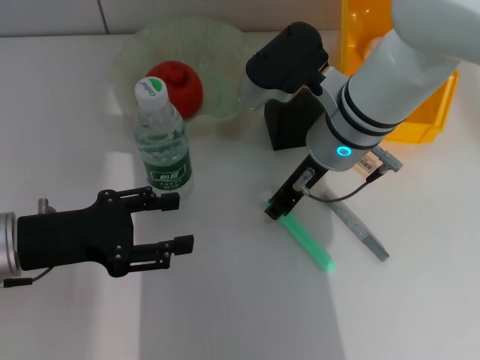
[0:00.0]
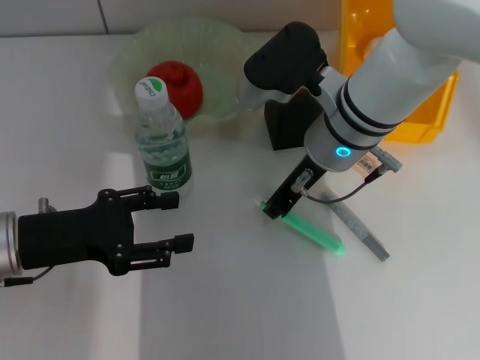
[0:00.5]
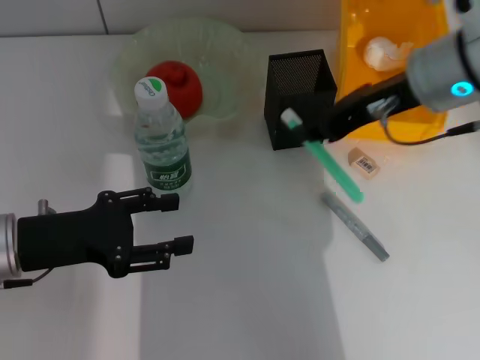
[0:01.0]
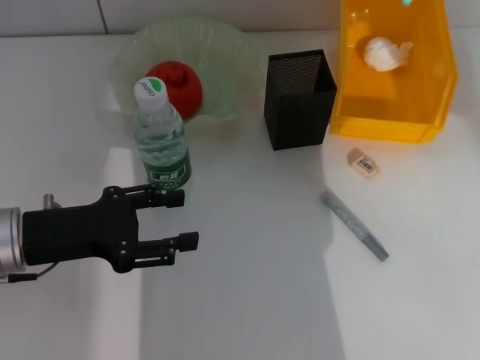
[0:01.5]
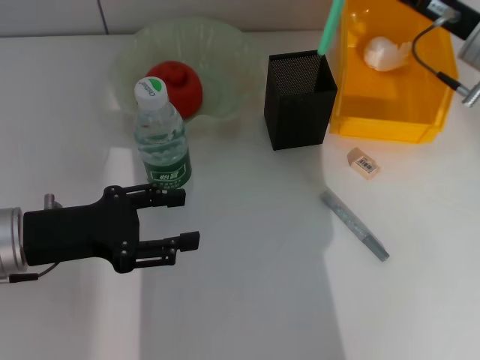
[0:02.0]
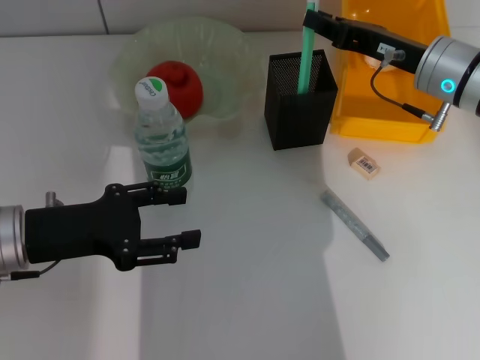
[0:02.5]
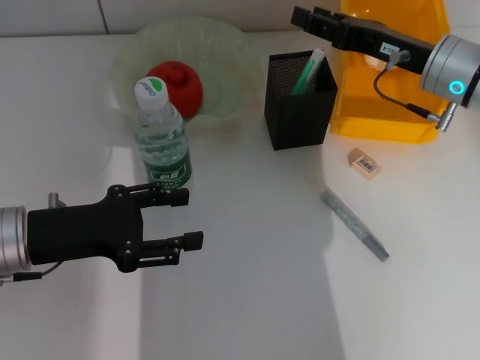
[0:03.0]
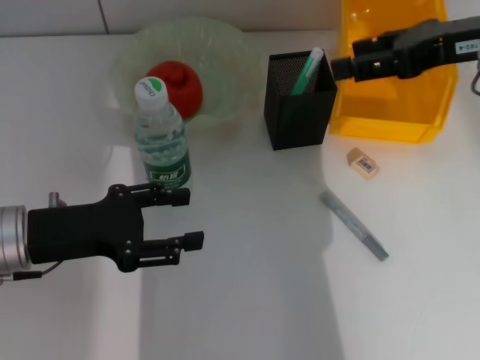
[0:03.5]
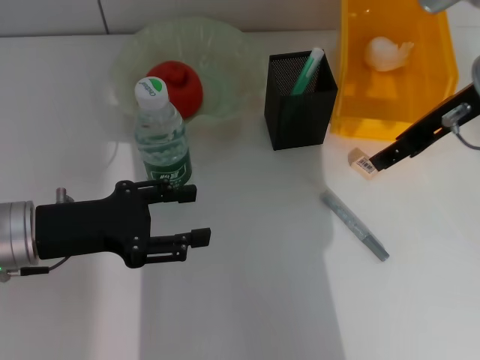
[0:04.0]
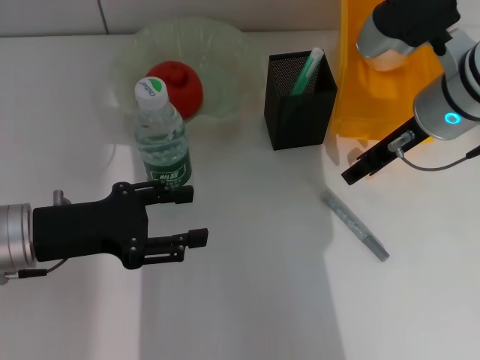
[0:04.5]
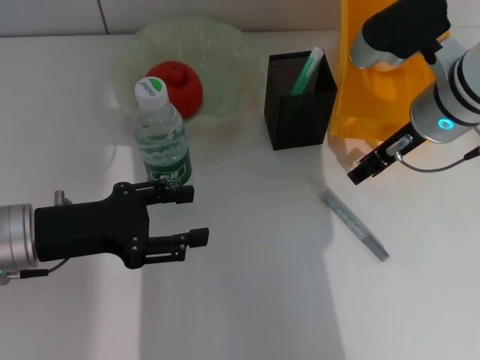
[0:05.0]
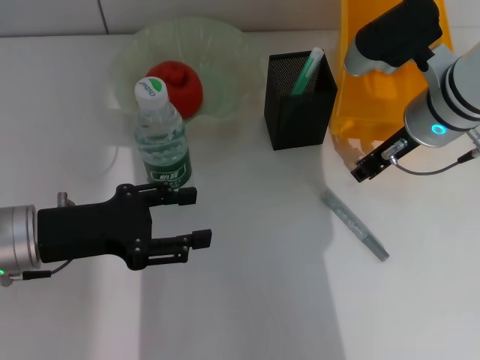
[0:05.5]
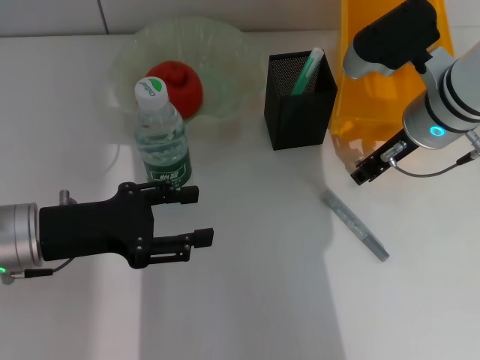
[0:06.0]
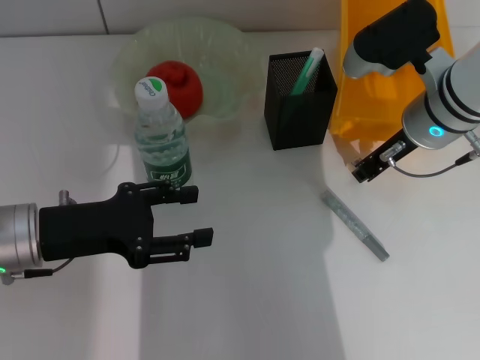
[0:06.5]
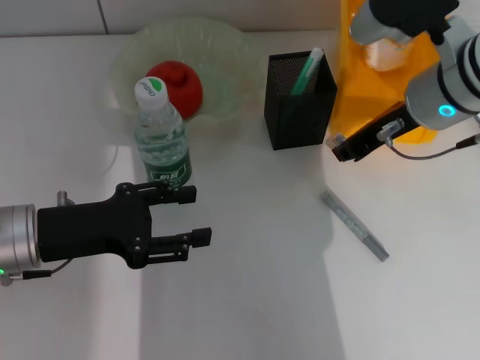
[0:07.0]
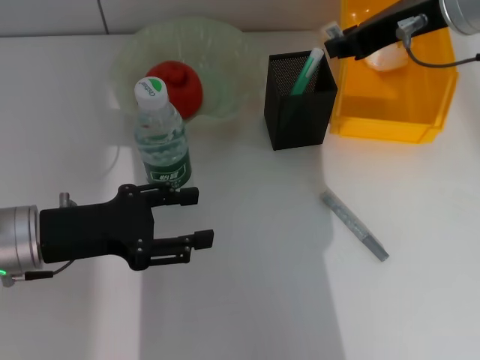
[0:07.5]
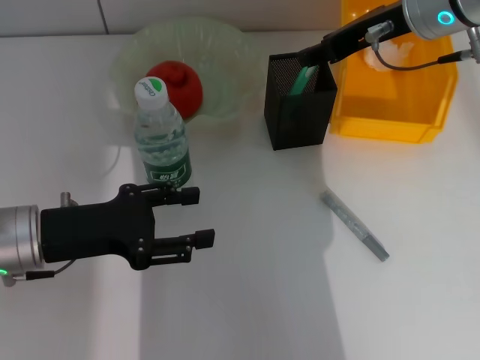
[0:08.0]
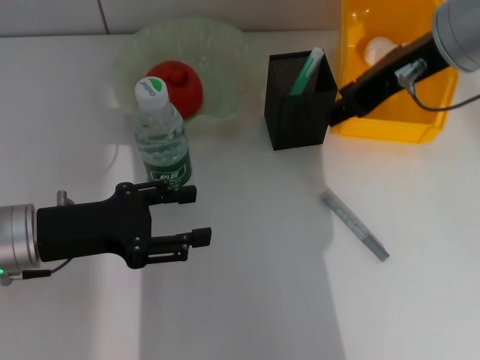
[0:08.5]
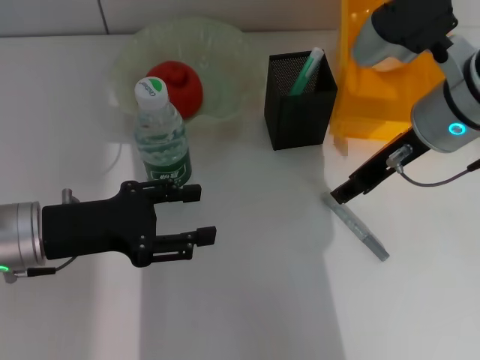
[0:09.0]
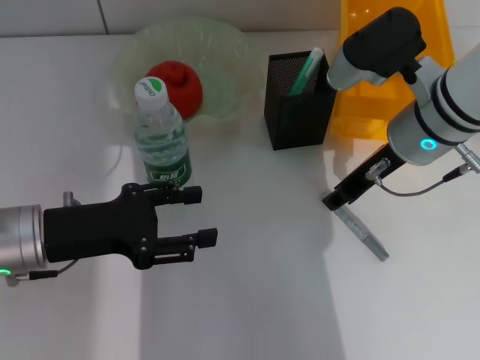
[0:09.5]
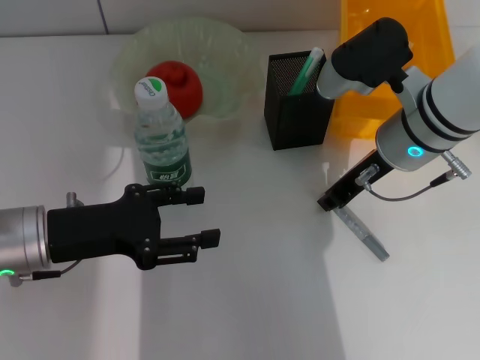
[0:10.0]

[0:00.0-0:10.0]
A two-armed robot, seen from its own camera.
Step, 0:00.0 to 0:03.0: Place the blue utility knife into the pen holder with the right hand.
Step, 0:03.5 to 0:06.0: Grab the eraser with the right hand.
Step, 0:06.5 to 0:08.0: Put the eraser into the pen holder with the right hand.
0:00.0 to 0:02.0: The right gripper travels to the right by some 15 cm.
0:02.0 to 0:04.0: The right gripper is displaced upward by some 5 cm, and opens its fingers.
0:04.0 to 0:06.0: The right gripper heads downward, covering about 5 cm, and closes its fingers.
0:06.0 to 0:08.0: The right gripper is displaced upward by approximately 10 cm.
0:08.0 to 0:10.0: The right gripper travels downward by about 10 cm.

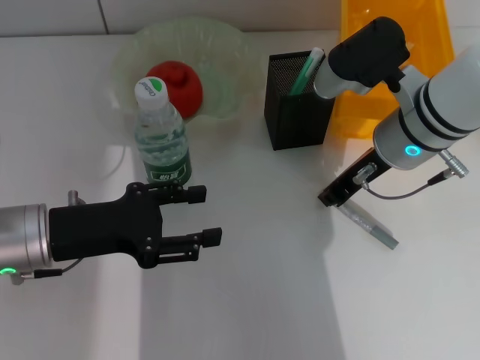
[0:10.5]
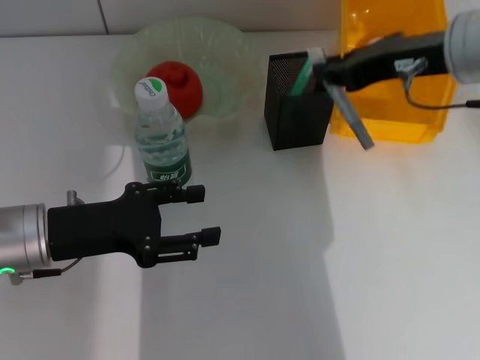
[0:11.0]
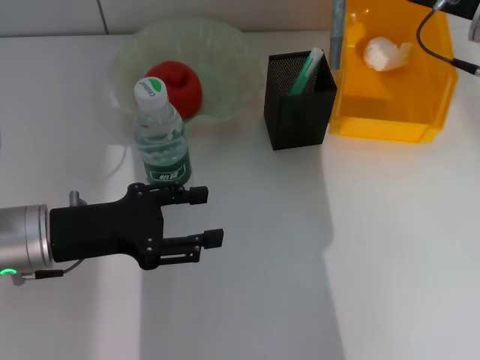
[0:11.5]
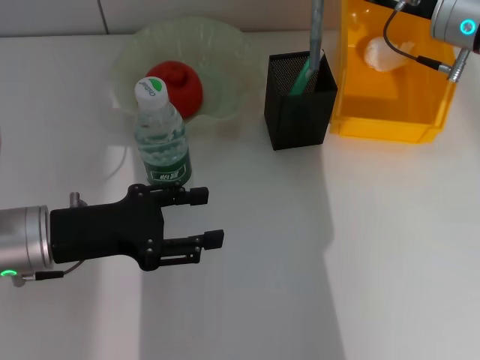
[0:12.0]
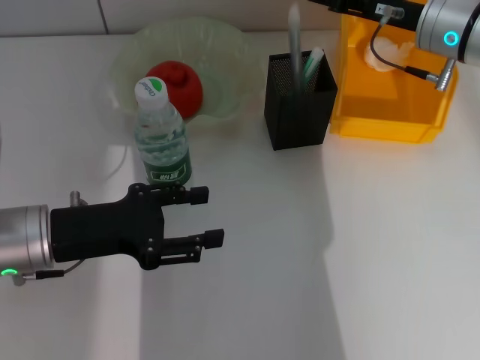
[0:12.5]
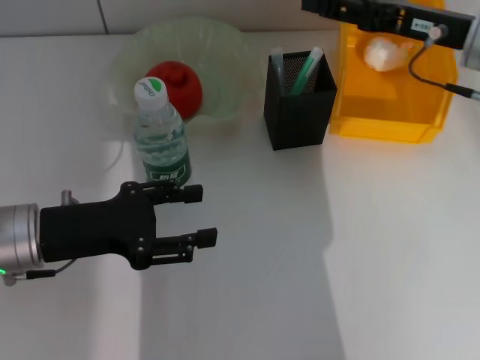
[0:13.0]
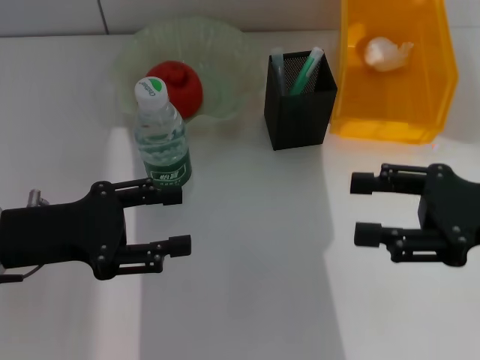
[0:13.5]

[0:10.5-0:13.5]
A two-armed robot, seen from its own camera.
Step, 0:11.0 to 0:12.5: Place the gray glue into the pen holder with the right hand.
0:10.5 to 0:12.0: The right gripper travels to the right and forward by roughly 10 cm, and travels upward and back again, approximately 10 cm each way.
0:12.0 to 0:13.5: The right gripper shifts roughly 20 cm backward, and opens up.

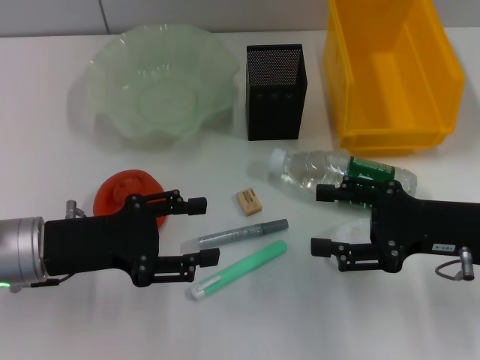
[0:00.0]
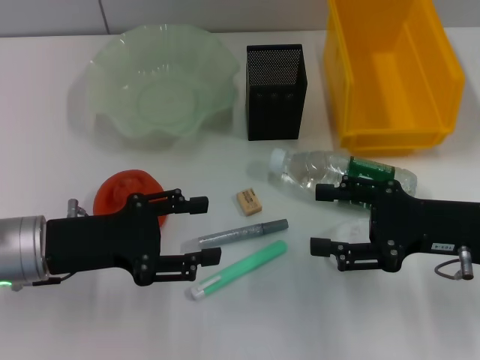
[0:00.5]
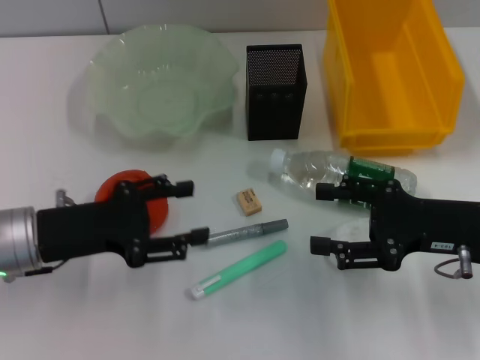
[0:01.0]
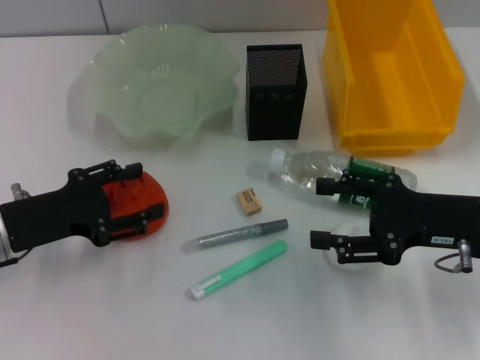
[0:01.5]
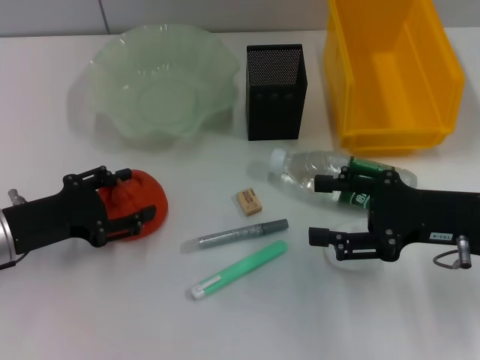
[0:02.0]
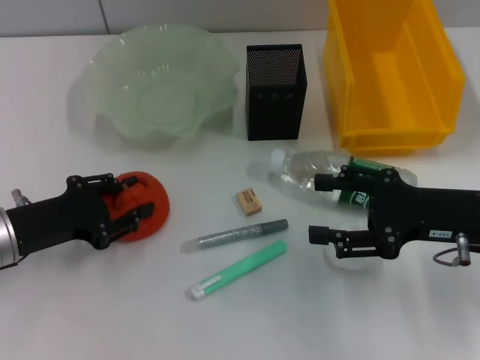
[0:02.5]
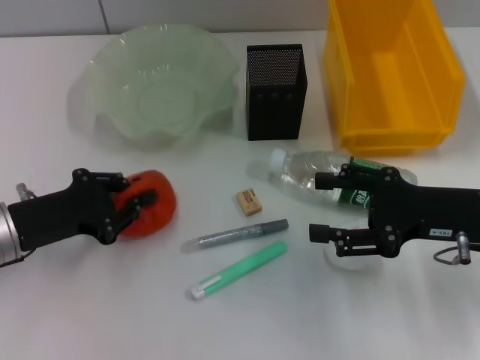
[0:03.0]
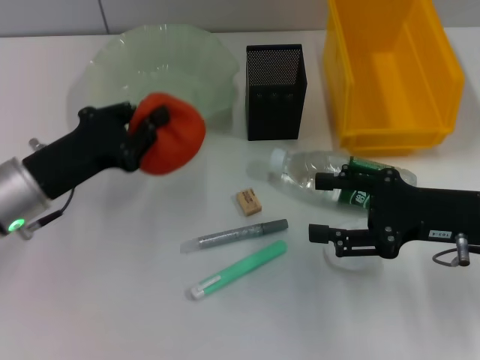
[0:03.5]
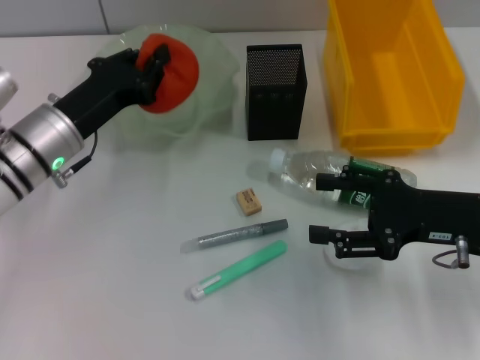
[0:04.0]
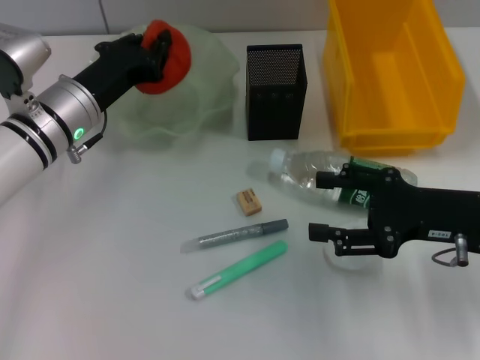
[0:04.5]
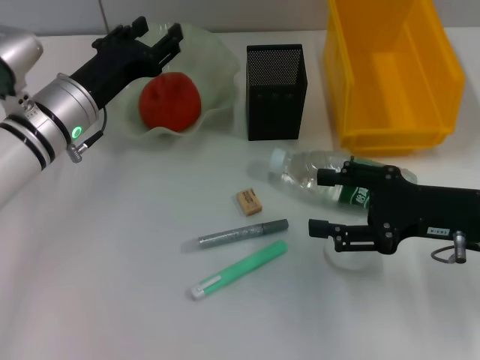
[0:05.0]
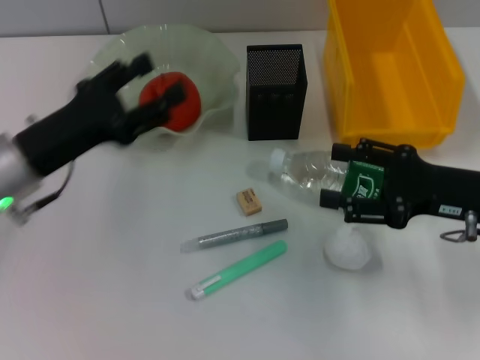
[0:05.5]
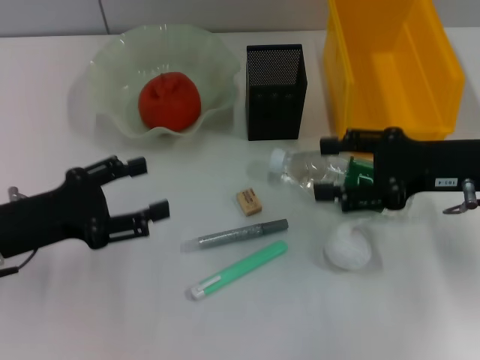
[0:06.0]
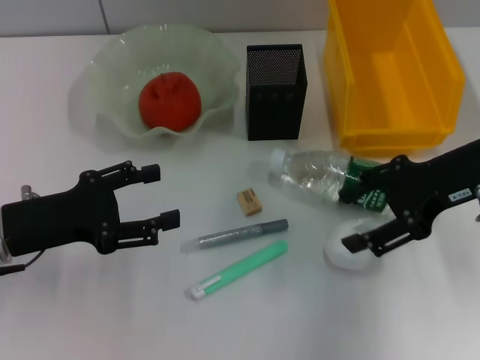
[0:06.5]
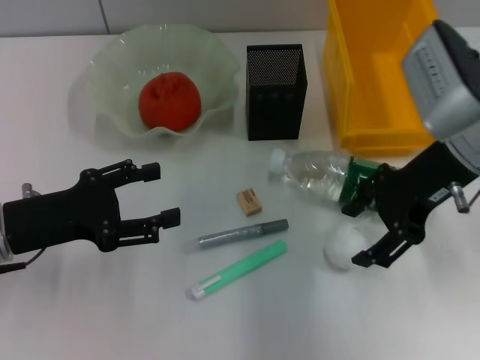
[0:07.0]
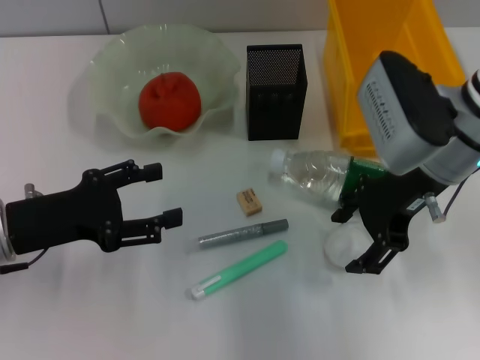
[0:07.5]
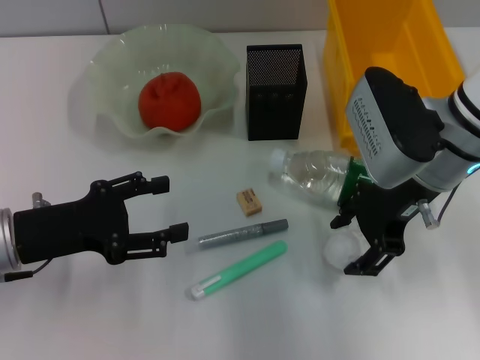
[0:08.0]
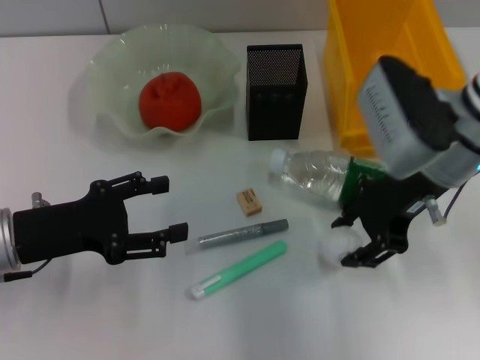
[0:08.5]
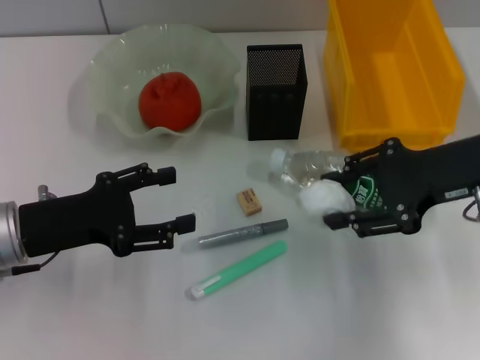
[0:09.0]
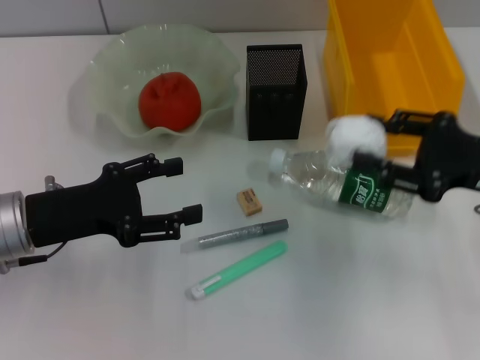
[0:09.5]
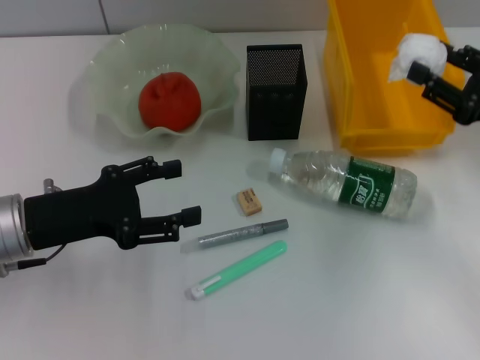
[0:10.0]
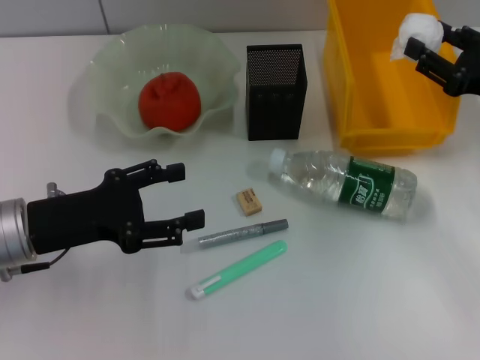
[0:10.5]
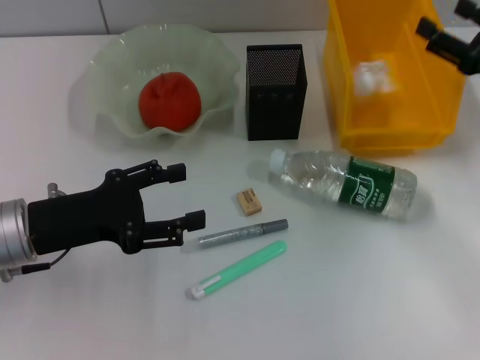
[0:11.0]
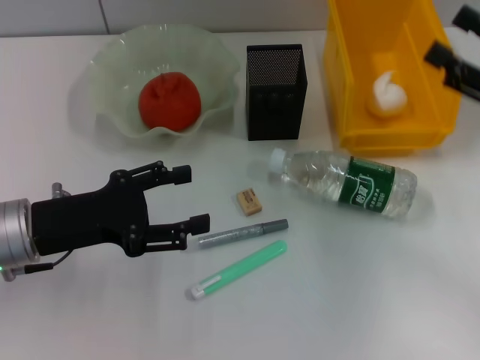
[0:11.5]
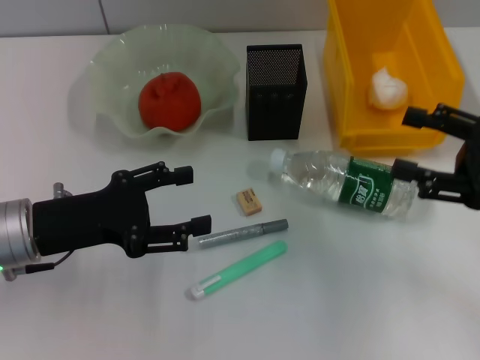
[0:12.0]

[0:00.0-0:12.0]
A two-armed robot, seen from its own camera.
Step, 0:00.0 to 0:02.5: Grab the orange with the left hand.
Step, 0:03.0 to 0:04.5: Place the orange into the fruit bowl with the left hand.
Step, 0:05.0 to 0:08.0: Grab the paper ball with the right hand.
Step, 0:08.5 to 0:11.0: Place the paper ball into the trash can with the right hand.
0:00.0 to 0:02.0: The left gripper changes place by some 5 cm.
0:02.0 to 0:04.0: The left gripper goes approximately 10 cm forward and to the right, and closes its fingers.
0:04.0 to 0:06.0: The left gripper moves backward and to the left, some 10 cm, and opens, while the right gripper ends up about 5 cm from where it was.
0:06.0 to 0:08.0: The right gripper heads to the left, covering about 10 cm.
0:08.0 to 0:10.0: The right gripper is displaced to the right by roughly 15 cm.
0:10.0 to 0:12.0: The right gripper opens.
